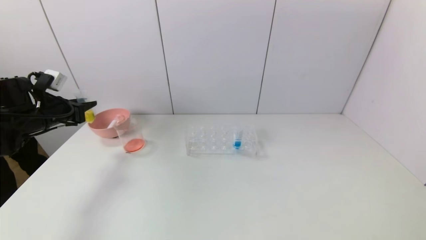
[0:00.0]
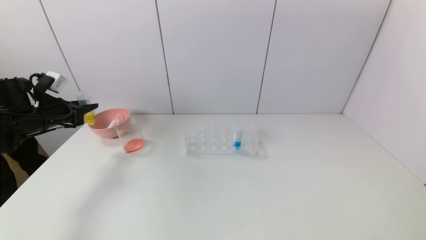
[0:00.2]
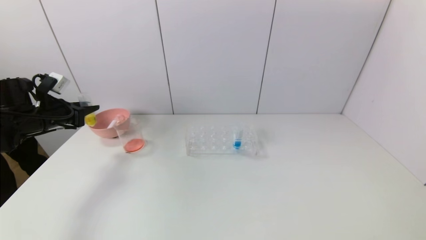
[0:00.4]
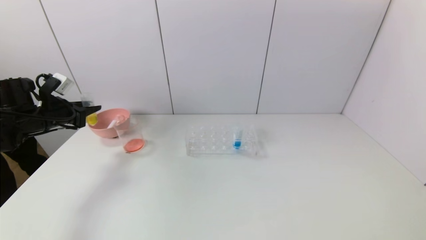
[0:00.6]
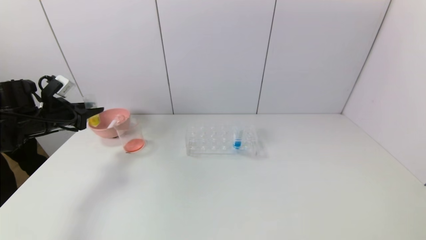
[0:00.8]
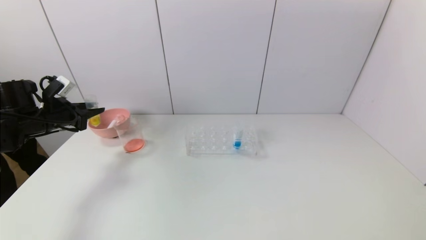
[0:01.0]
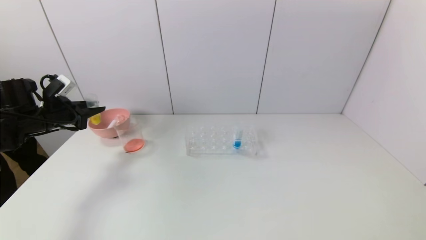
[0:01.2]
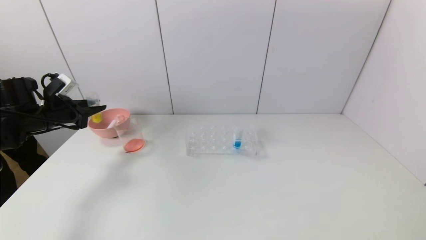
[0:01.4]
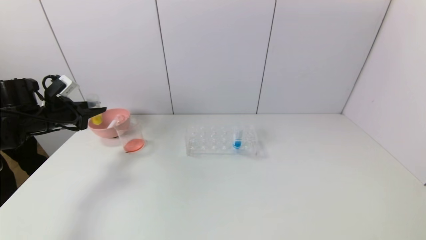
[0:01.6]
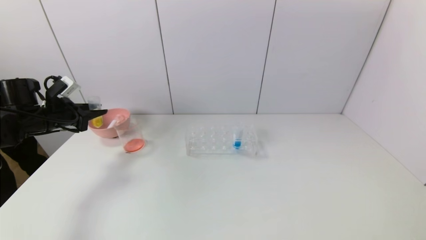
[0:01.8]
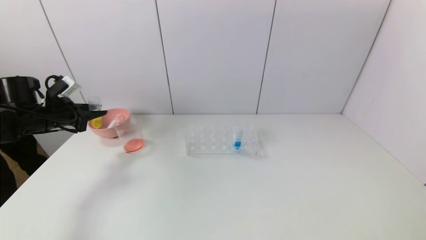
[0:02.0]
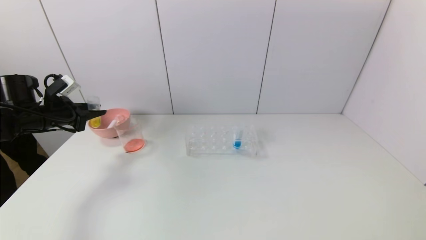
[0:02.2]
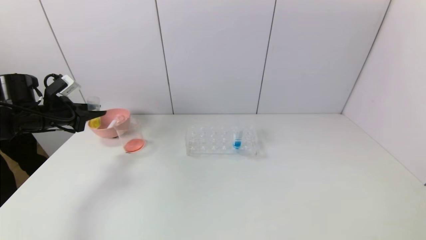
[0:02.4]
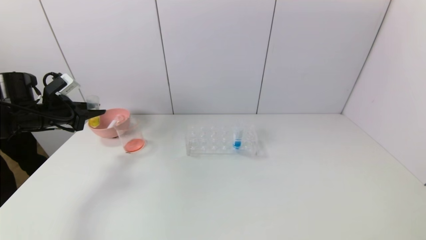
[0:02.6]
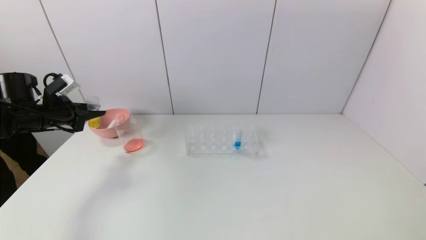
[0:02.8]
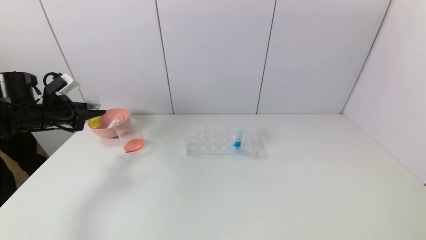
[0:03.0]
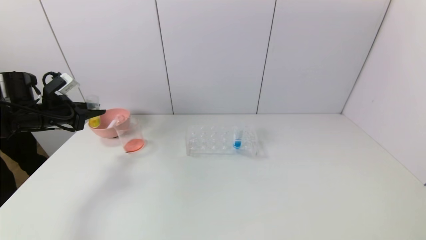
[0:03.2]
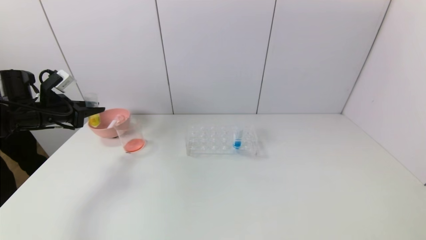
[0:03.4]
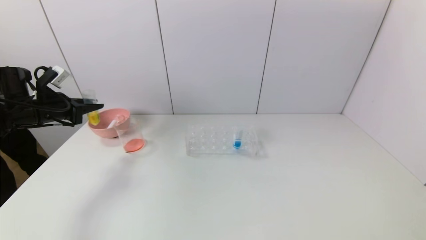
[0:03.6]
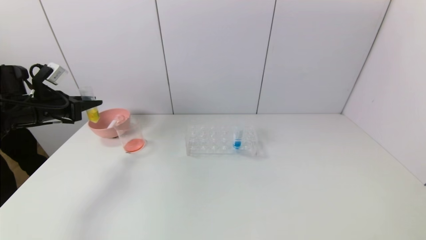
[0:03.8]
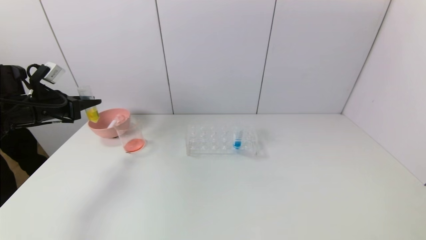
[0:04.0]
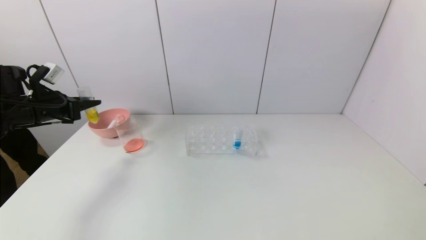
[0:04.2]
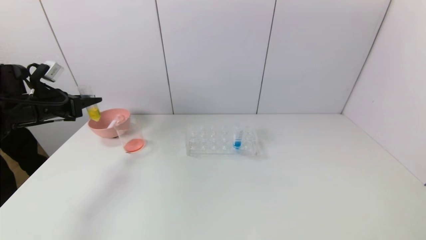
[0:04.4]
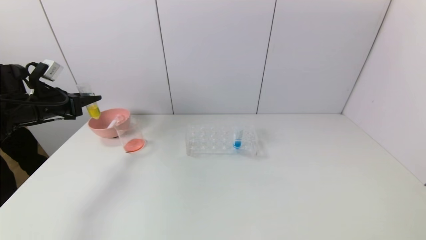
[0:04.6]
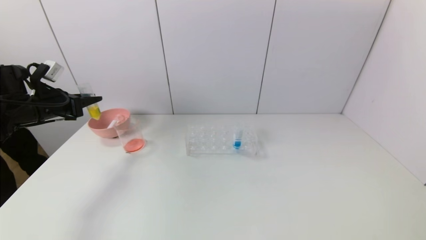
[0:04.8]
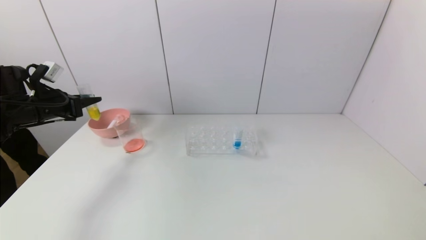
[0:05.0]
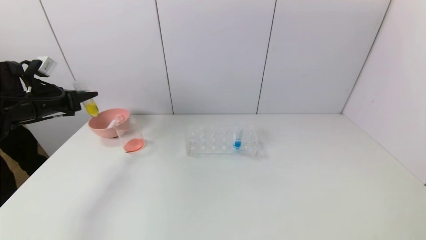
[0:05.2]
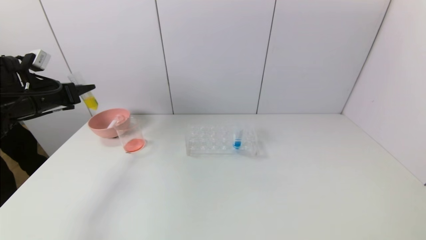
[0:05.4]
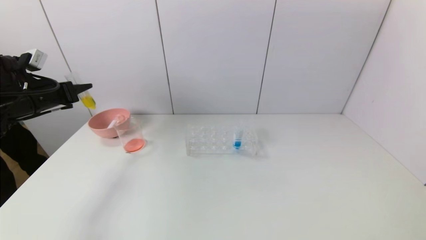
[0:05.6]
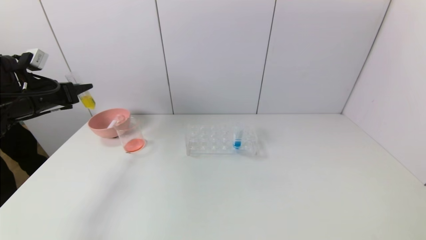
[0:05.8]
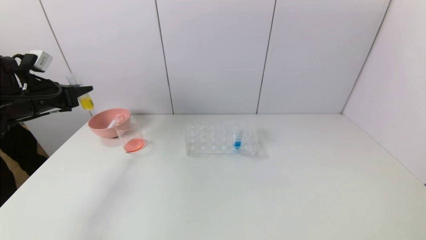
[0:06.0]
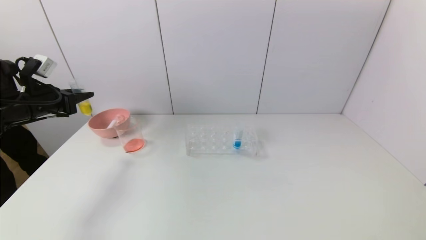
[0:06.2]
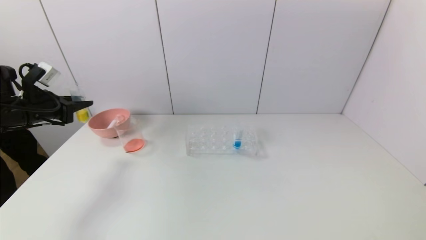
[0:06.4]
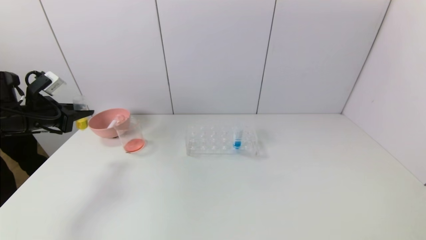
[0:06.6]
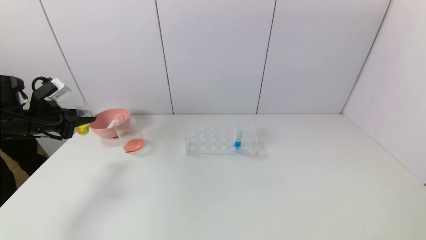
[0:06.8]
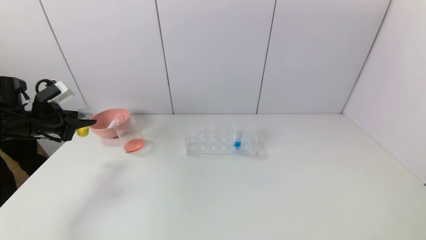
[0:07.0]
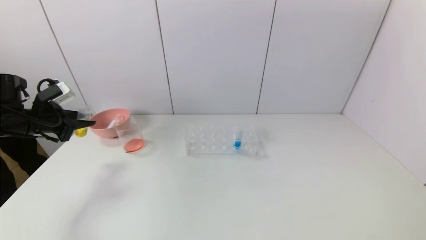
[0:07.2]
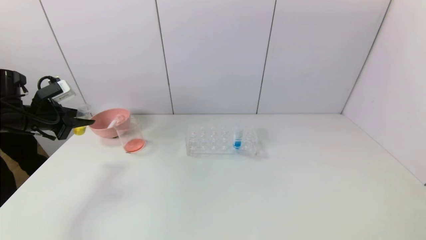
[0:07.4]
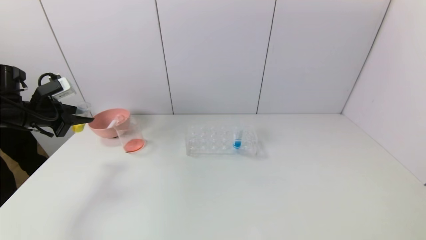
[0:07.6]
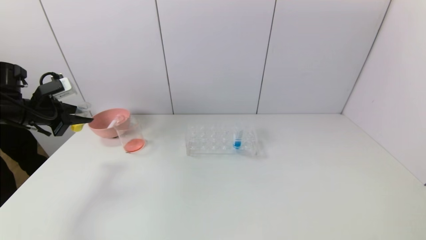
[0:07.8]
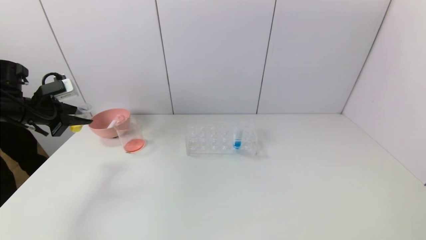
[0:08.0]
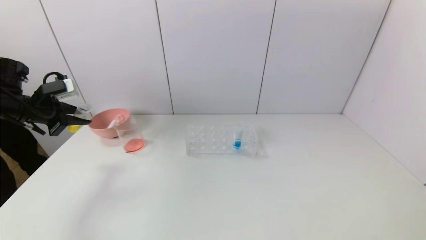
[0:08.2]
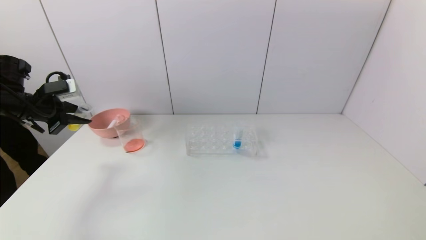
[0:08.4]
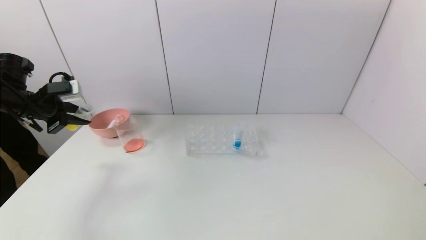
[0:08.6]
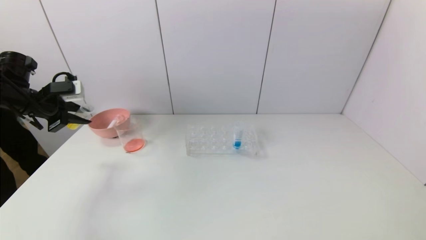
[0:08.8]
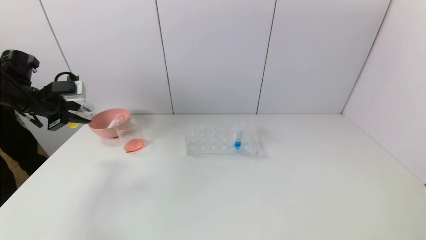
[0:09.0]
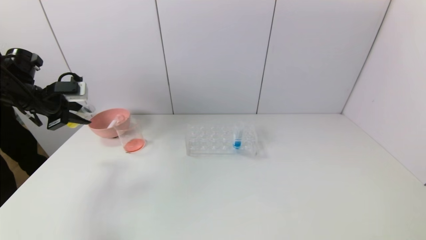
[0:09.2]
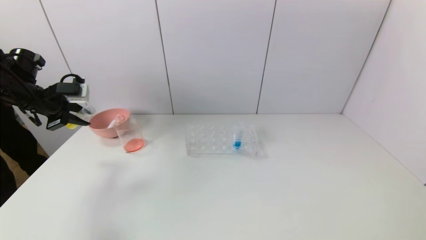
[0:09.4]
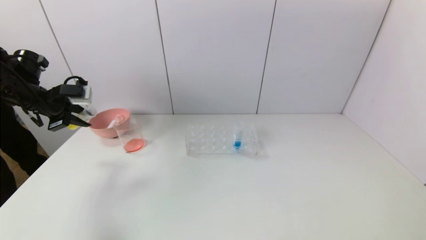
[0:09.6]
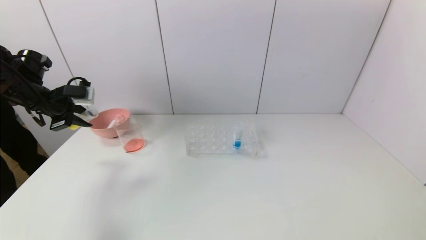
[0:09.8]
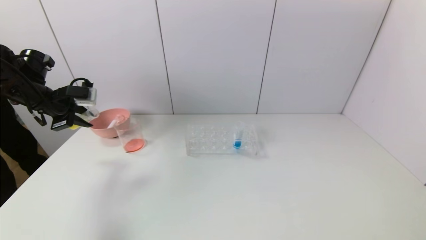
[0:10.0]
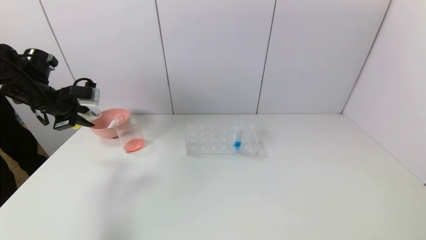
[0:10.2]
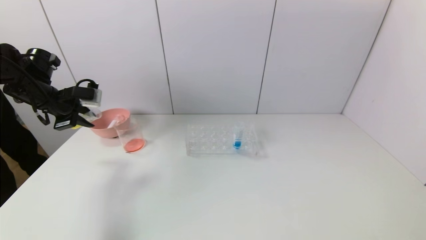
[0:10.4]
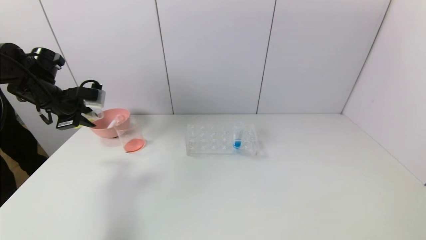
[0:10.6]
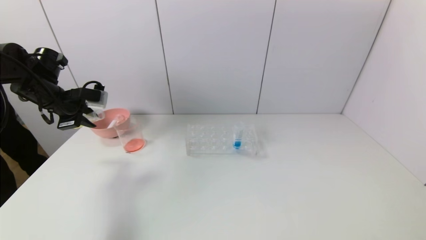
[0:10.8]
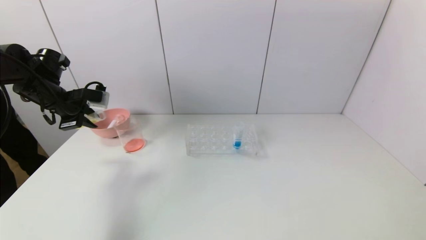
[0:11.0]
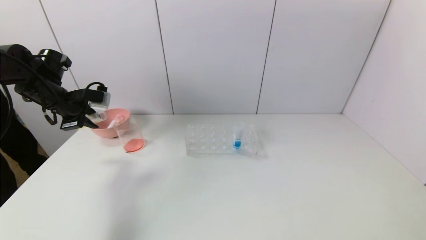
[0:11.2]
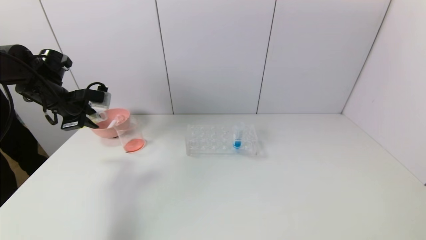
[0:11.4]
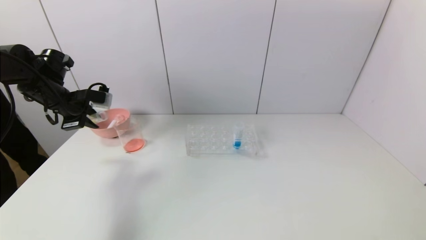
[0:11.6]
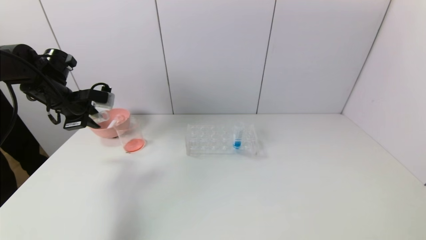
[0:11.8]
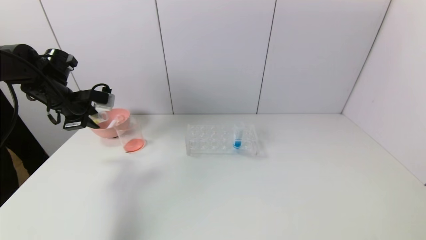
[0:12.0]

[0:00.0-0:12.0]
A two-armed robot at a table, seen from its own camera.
Task of the whole recording: pick up the test tube with yellow pigment and the test tube with red pigment by grippers and pour them into the beaker.
0:00.0 to 0:01.6: The grippers stay close to where they were, moving slightly.
0:01.6 to 0:03.0: There are only small adjustments of the grippers.
0:04.4 to 0:06.0: The grippers move only a little.
0:09.0 to 0:12.0: There are only small adjustments of the grippers.

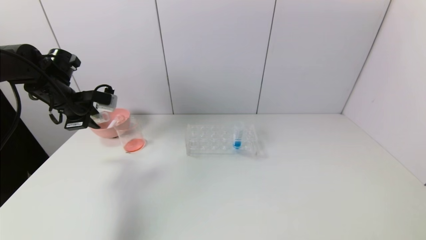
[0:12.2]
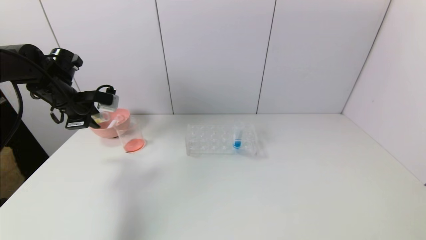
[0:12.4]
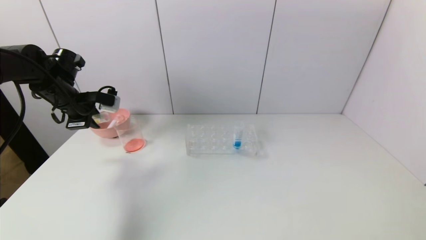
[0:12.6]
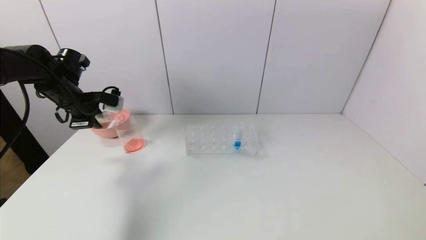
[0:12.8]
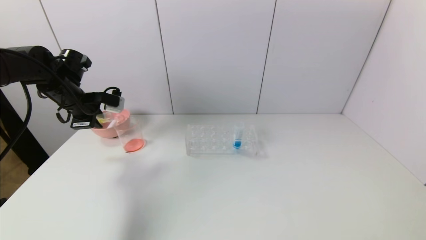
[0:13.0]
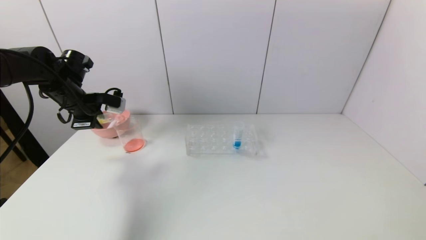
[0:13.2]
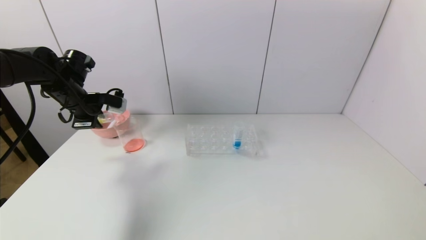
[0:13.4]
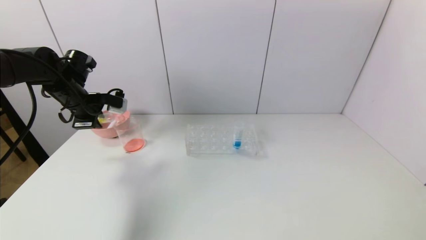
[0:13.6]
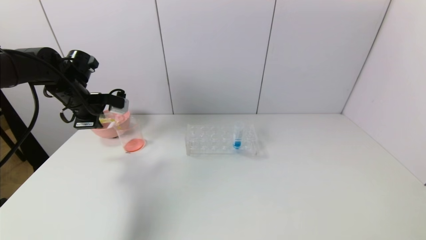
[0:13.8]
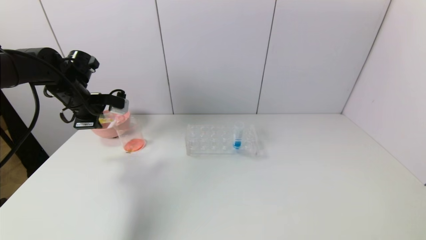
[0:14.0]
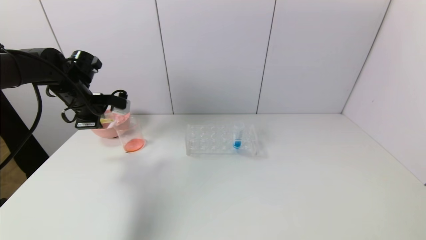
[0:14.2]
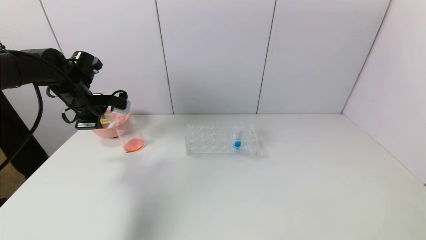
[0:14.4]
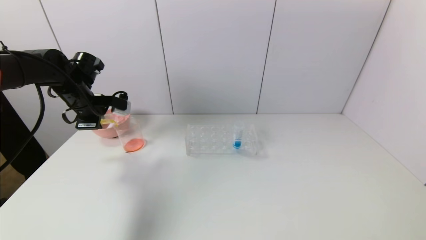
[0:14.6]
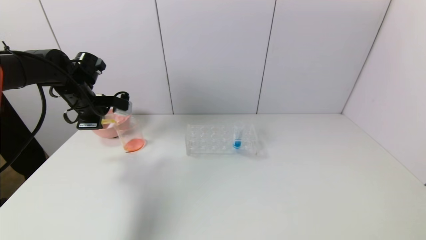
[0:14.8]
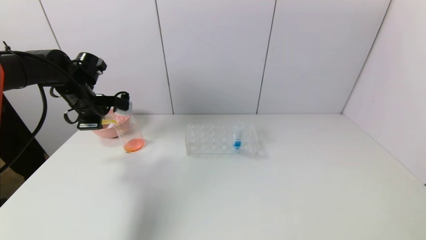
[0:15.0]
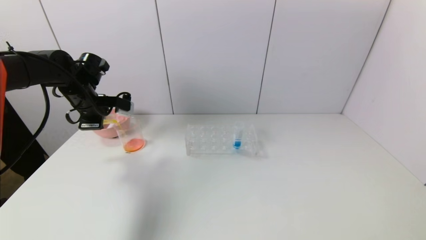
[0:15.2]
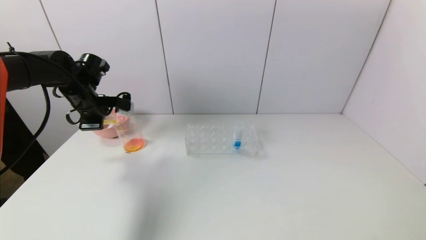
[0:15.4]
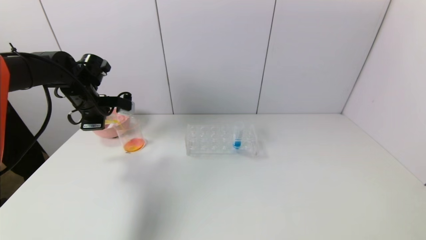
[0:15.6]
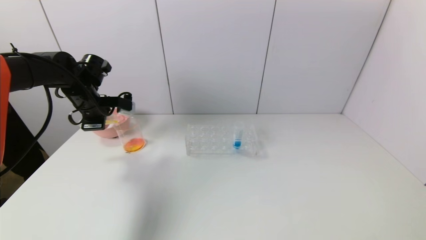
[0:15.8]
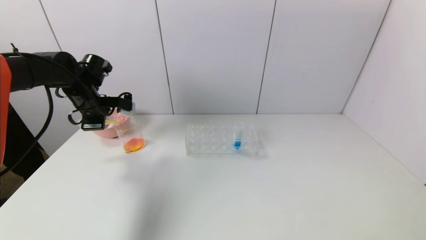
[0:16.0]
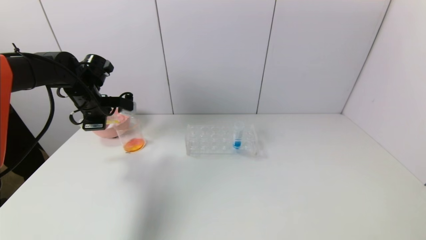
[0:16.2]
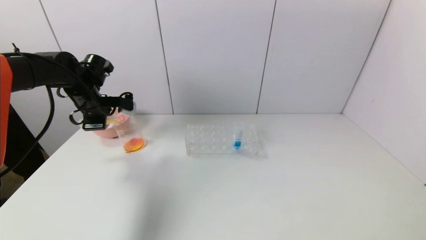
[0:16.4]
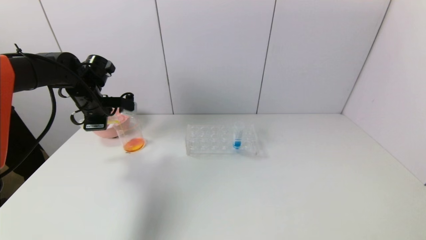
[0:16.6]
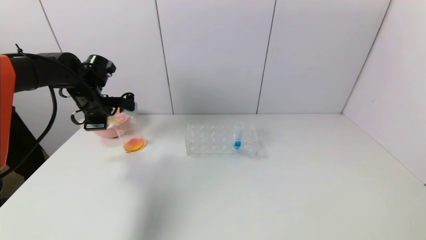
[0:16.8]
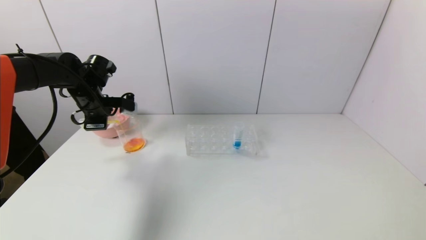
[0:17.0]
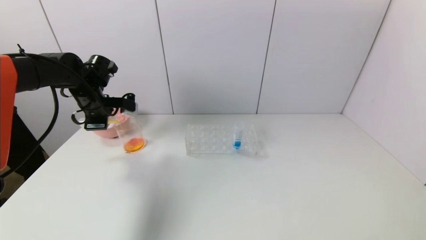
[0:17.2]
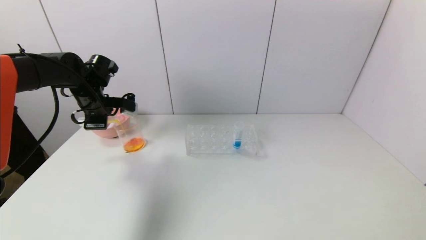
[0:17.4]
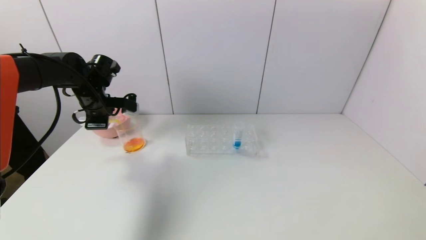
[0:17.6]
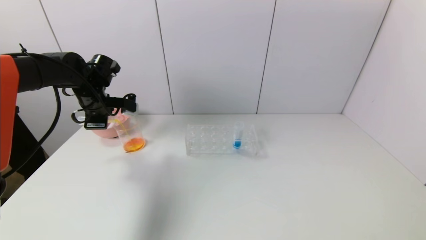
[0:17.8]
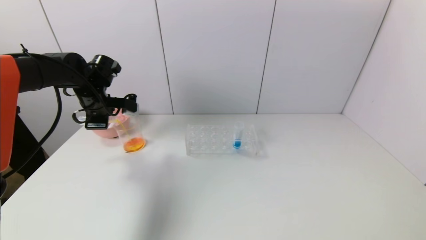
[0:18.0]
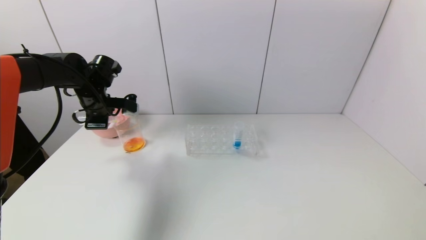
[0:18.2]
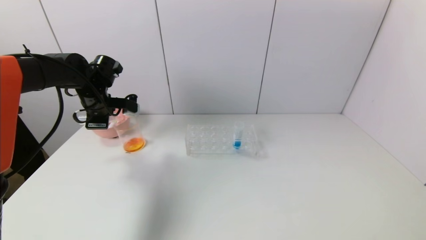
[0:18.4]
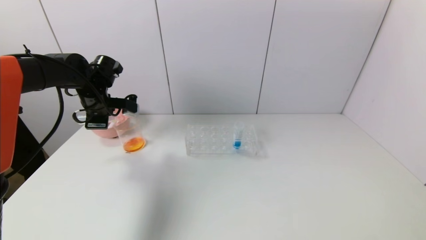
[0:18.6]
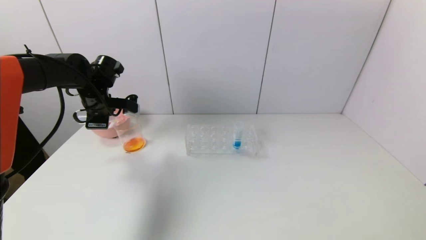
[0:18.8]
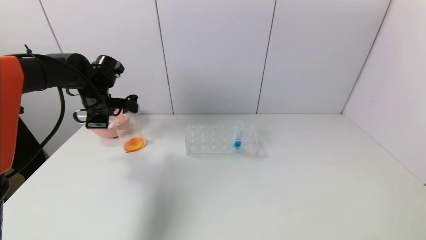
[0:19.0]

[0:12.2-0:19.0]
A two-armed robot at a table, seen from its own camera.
Task of the whole recording: pick up the test tube with yellow pigment and the test tube with red pigment by grippers and pour them into the beaker.
Step, 0:12.2 to 0:18.6: Pour the yellow reagent into the graduated cylinder with the left gripper.
0:12.2 to 0:15.0: The grippers stay close to where they were, moving slightly.
0:15.0 to 0:16.2: Both grippers stay put.
0:16.2 to 0:17.6: The grippers stay close to where they were, moving slightly.
0:17.6 to 0:19.0: The two grippers keep their place.
